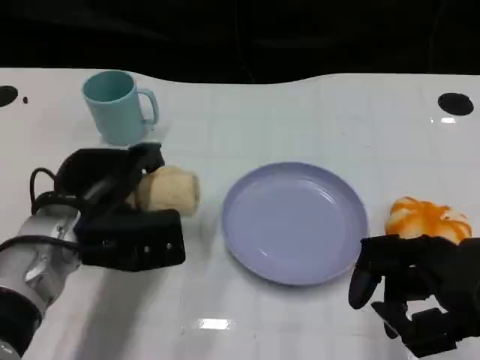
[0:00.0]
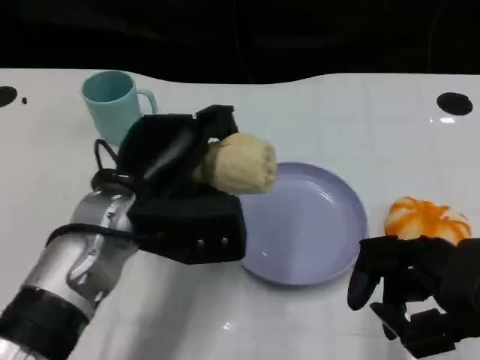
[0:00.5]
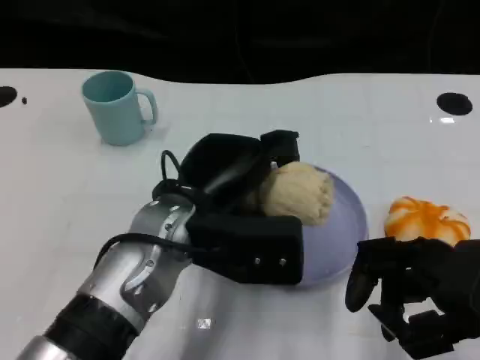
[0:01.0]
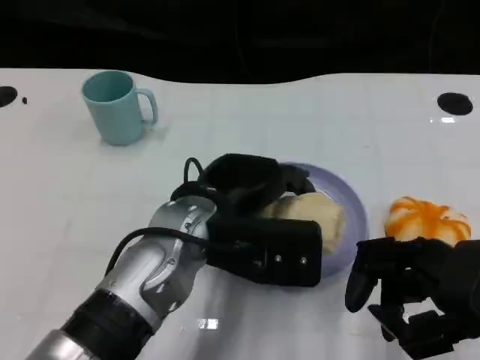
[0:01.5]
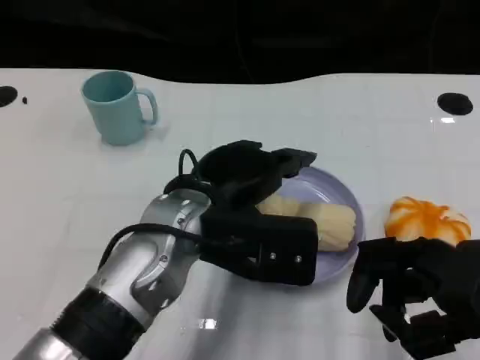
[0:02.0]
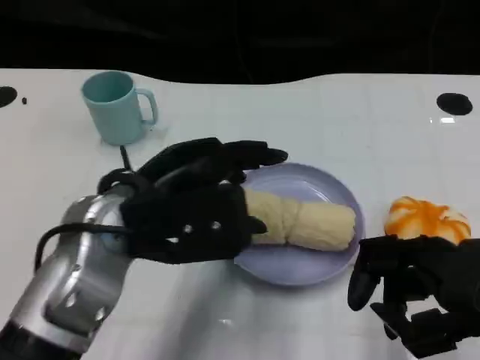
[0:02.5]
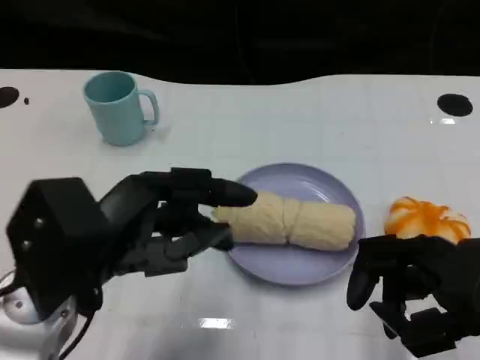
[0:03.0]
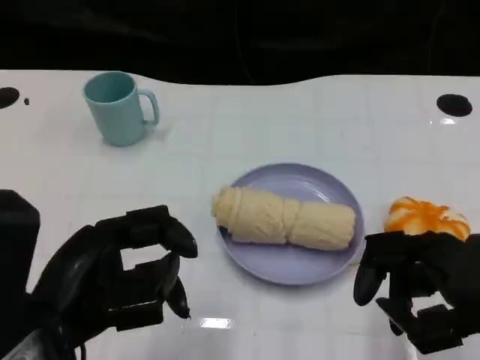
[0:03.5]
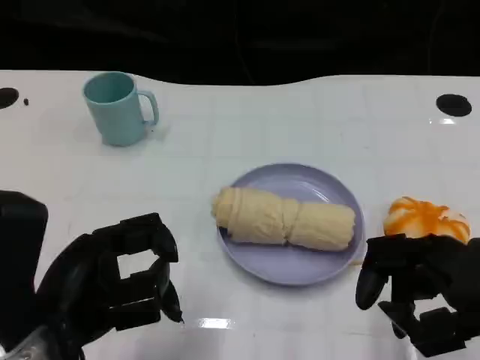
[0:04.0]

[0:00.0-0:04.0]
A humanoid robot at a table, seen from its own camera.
Task of the whole recording: Grasp the towel on the left side of the plate with the left hand and place it into the plate.
0:00.0 to 0:02.0: The left hand is displaced to the right by roughly 10 cm.
0:02.0 to 0:04.0: The left hand goes about 15 cm to the left and backward.

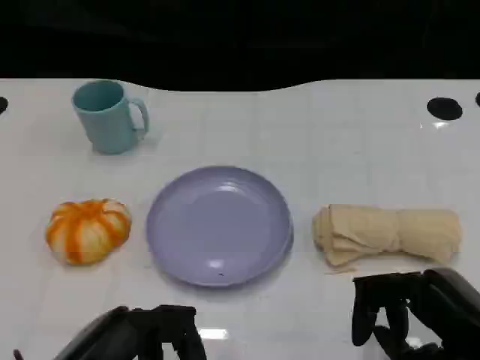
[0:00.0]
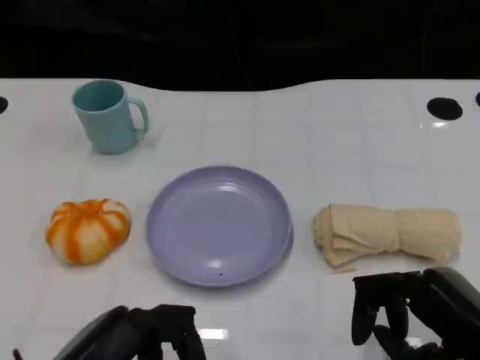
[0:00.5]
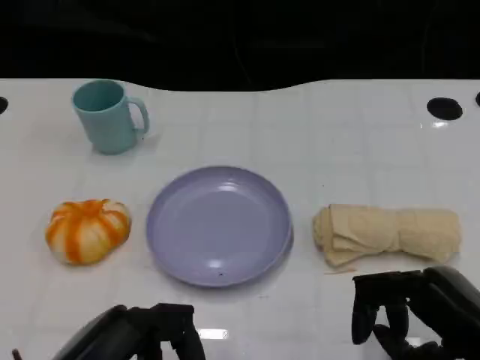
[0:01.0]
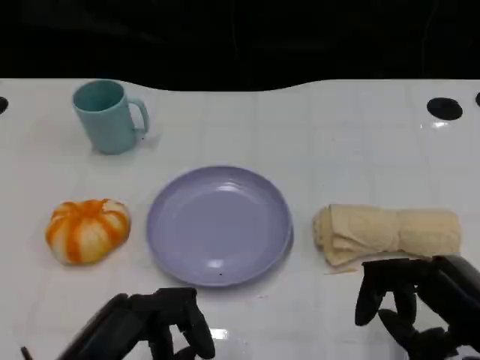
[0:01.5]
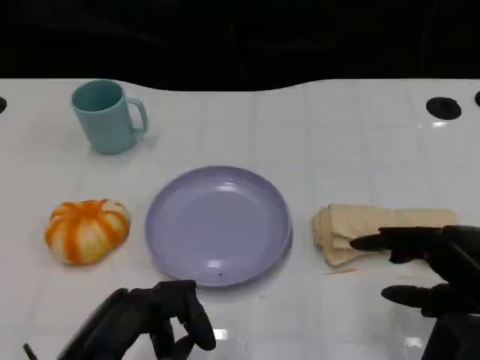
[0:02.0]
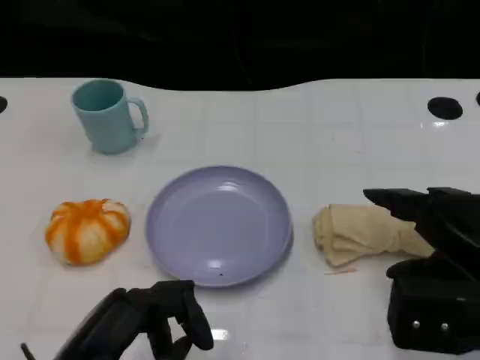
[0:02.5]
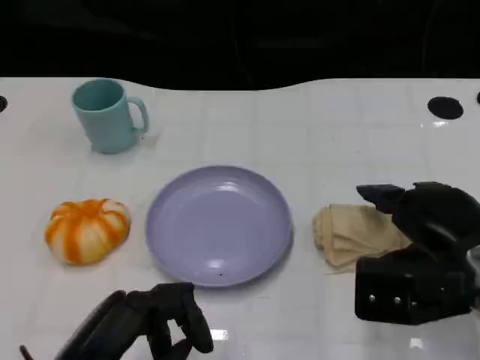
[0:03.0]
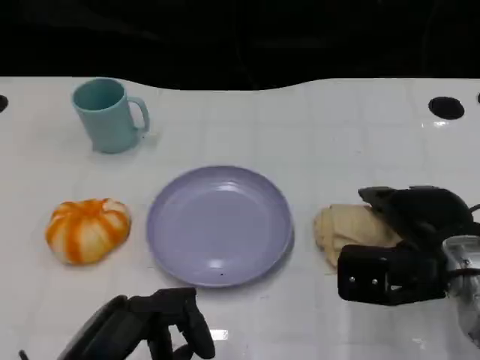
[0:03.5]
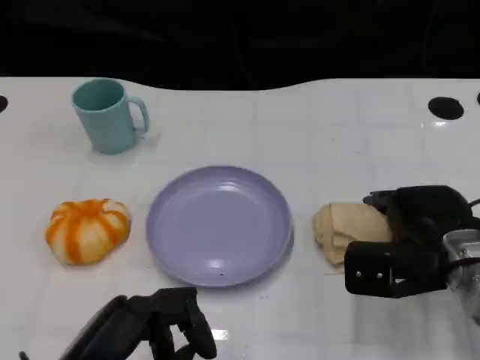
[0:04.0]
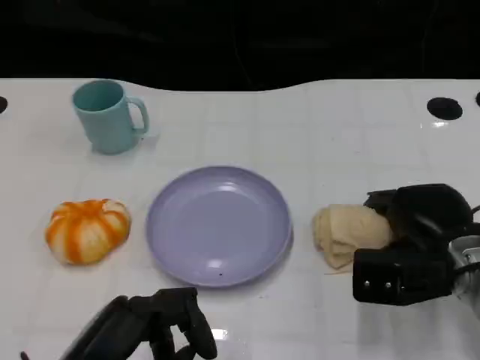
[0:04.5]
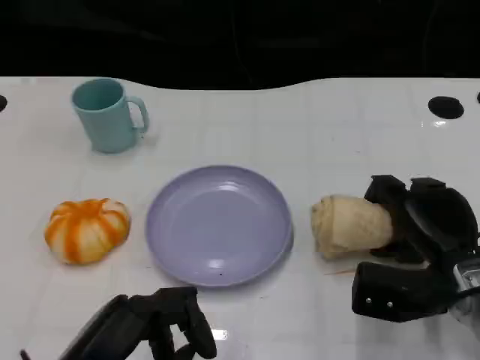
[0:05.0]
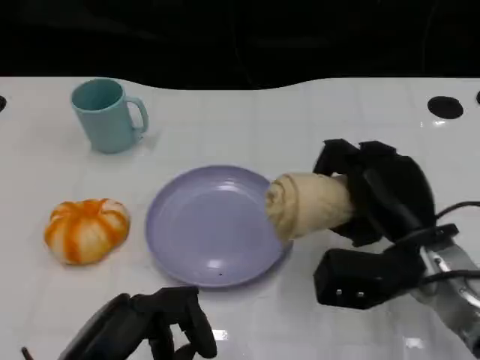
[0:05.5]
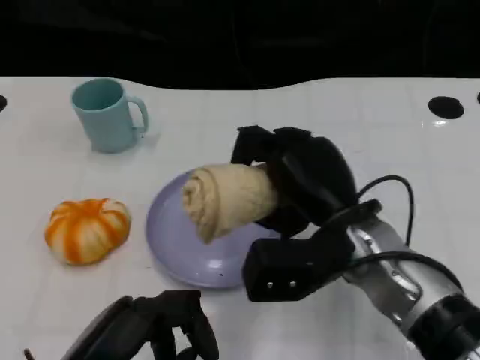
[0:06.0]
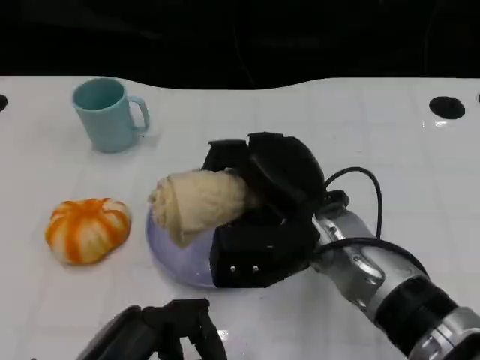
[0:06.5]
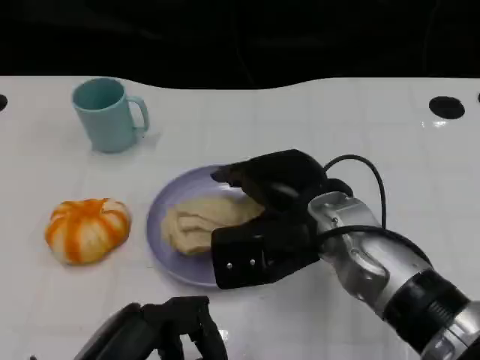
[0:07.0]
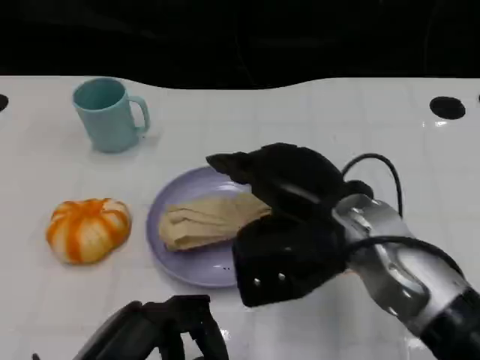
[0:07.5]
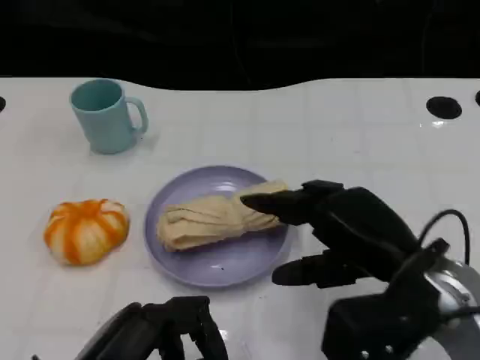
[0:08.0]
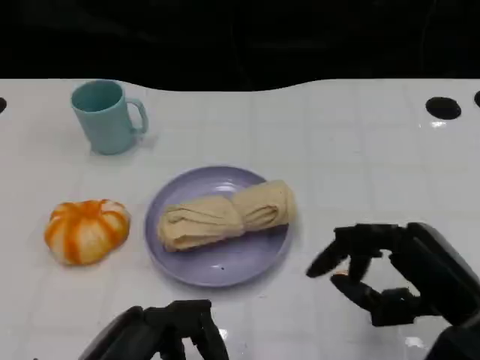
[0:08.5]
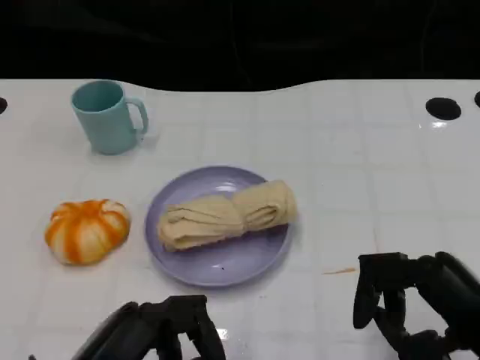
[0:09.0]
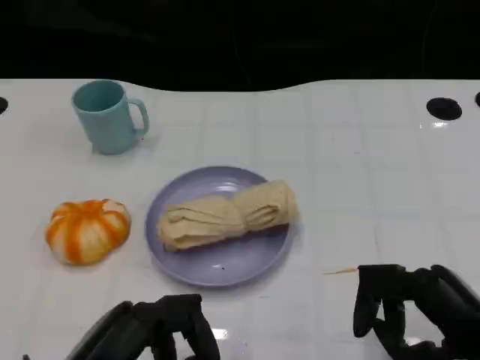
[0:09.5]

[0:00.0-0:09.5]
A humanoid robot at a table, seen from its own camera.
Task of the whole recording: Grasp the towel on the left side of the plate with the left hand and place it into the plate.
0:00.0 to 0:02.0: The hands stay close to where they were, moving slightly.
0:02.0 to 0:04.0: The right hand travels forward and downward by about 10 cm.
0:05.5 to 0:07.5: The right hand heads upward and to the left, covering roughly 10 cm.
0:07.5 to 0:09.5: The right hand moves to the right and backward, approximately 15 cm.

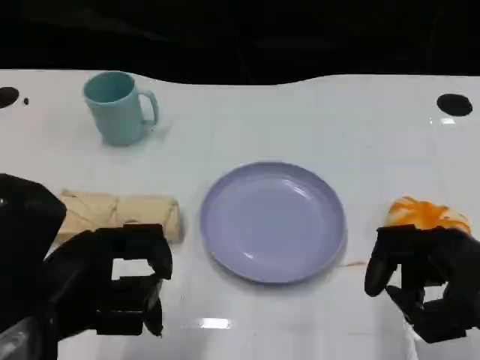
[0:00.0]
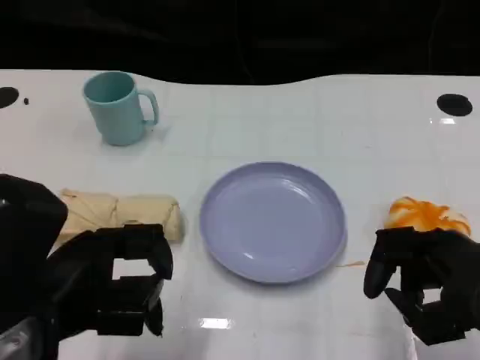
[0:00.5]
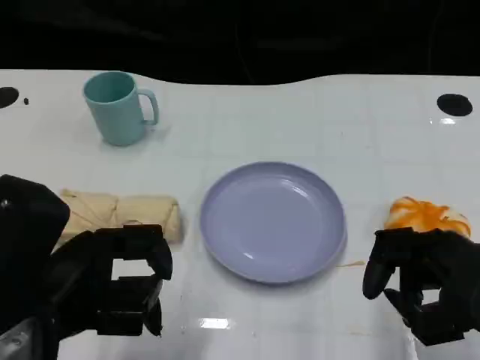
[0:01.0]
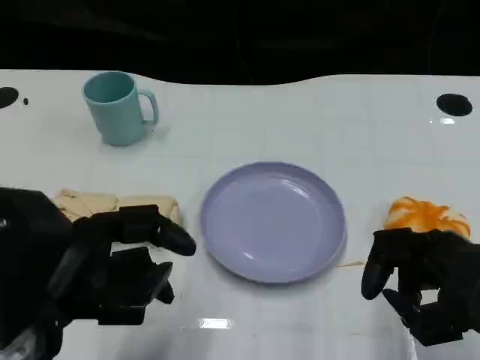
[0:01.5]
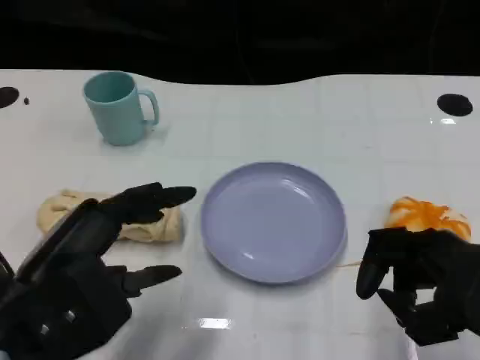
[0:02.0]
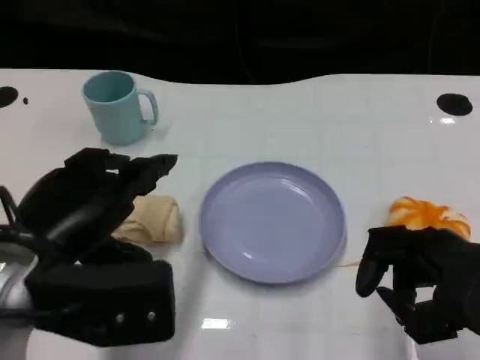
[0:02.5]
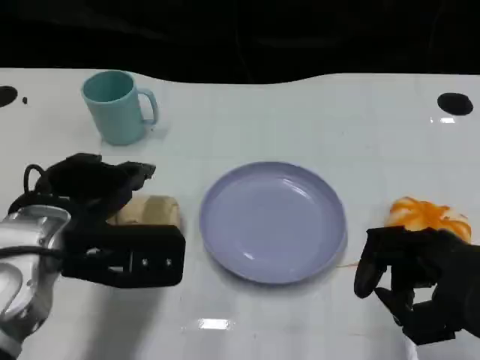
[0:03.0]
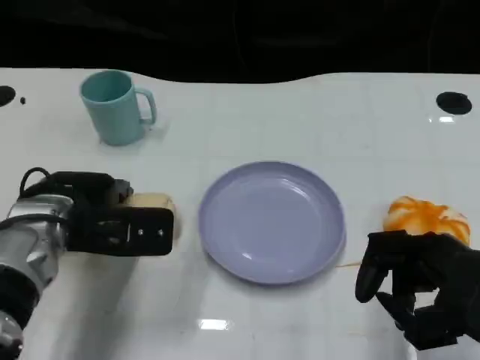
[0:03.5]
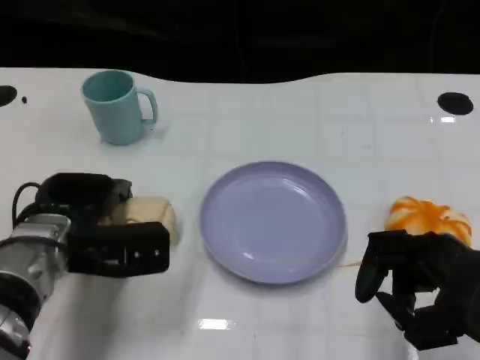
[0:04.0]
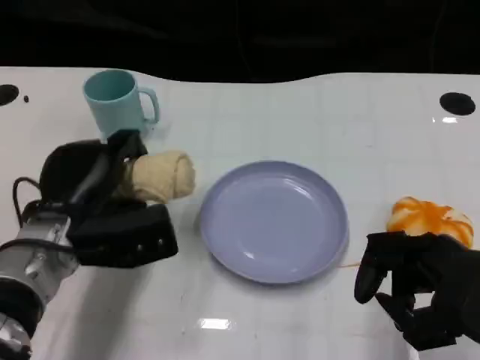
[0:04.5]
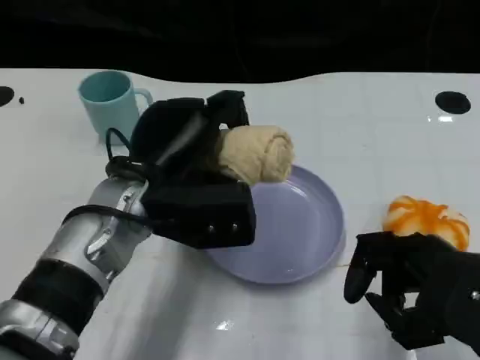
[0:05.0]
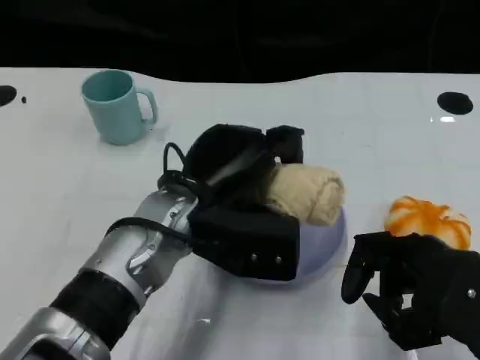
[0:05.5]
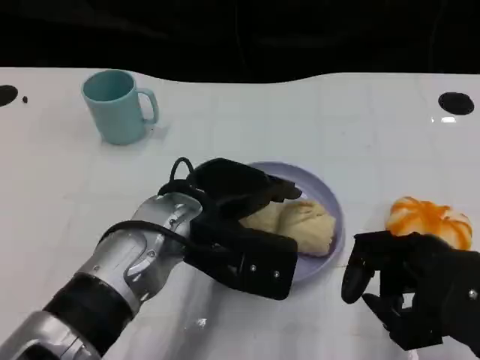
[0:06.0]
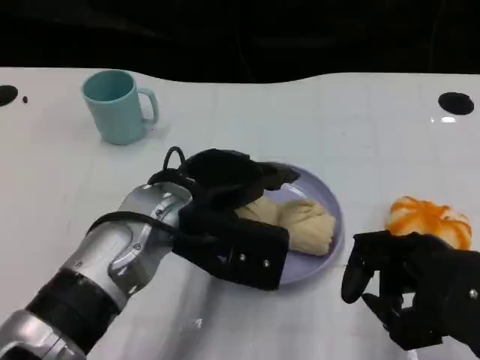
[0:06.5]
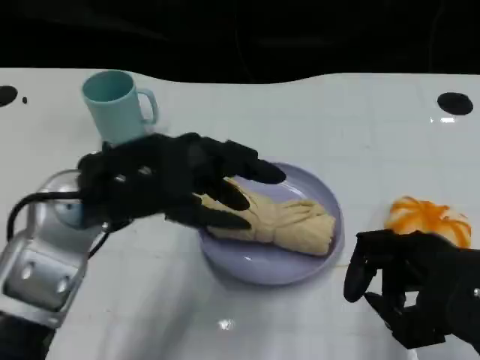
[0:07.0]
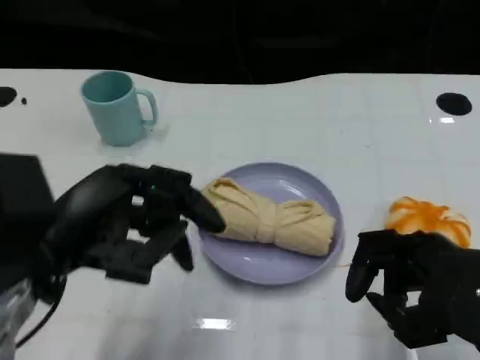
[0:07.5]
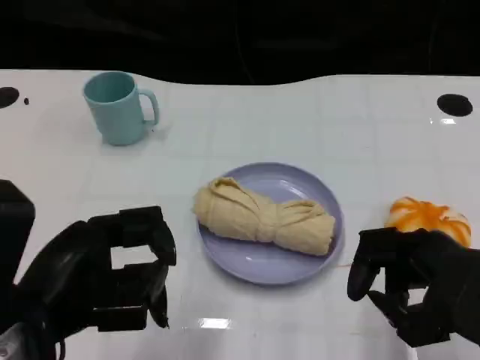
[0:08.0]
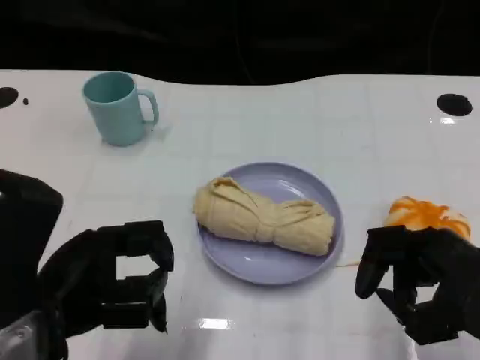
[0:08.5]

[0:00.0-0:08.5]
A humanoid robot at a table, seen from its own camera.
Task of the whole recording: Grasp the towel on the left side of the plate with the left hand and place it into the plate.
0:02.0 to 0:04.0: The left hand moves forward and downward, about 15 cm.
0:04.0 to 0:06.5: The left hand goes about 15 cm to the right and upward.
0:06.5 to 0:08.5: The left hand heads to the left and backward, covering approximately 15 cm.
